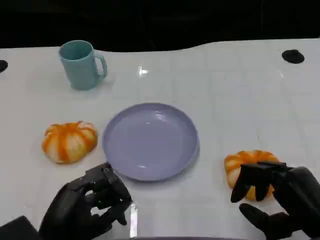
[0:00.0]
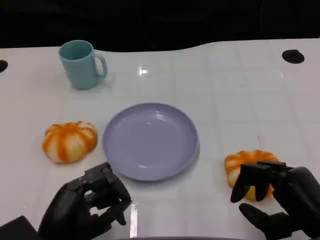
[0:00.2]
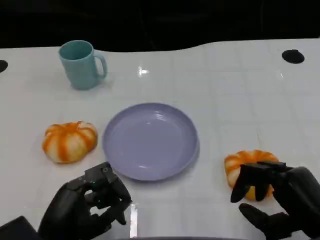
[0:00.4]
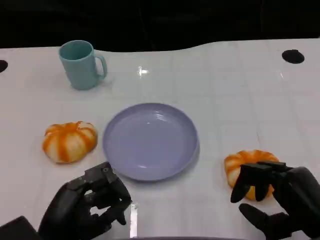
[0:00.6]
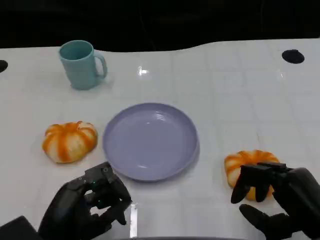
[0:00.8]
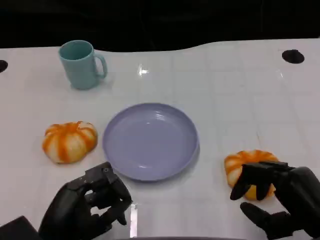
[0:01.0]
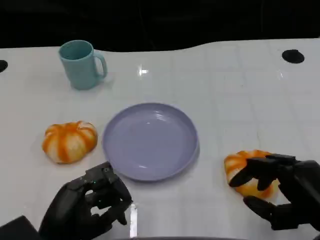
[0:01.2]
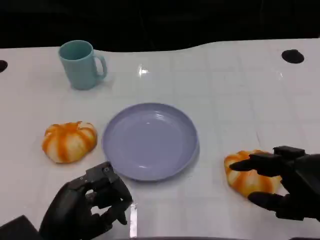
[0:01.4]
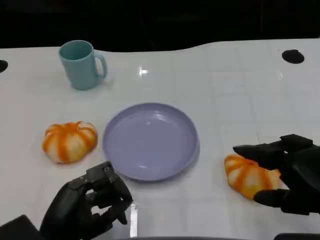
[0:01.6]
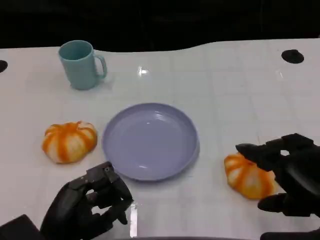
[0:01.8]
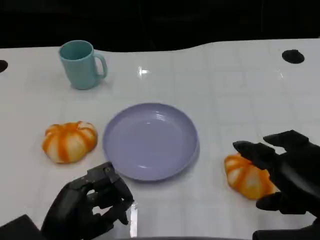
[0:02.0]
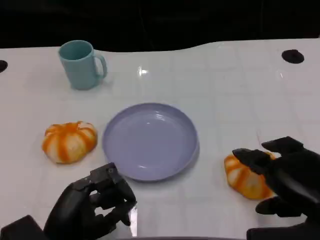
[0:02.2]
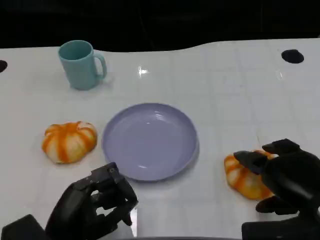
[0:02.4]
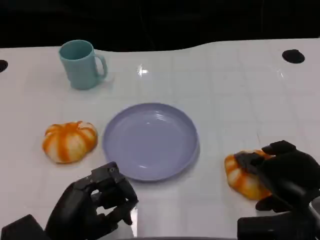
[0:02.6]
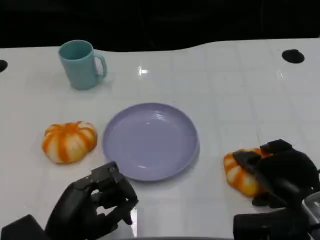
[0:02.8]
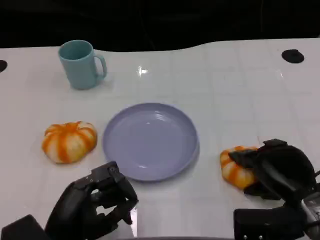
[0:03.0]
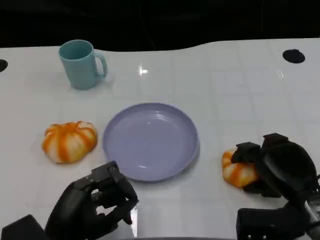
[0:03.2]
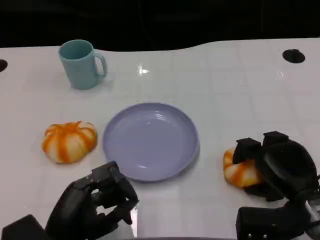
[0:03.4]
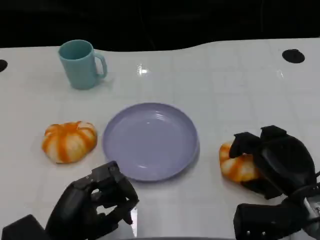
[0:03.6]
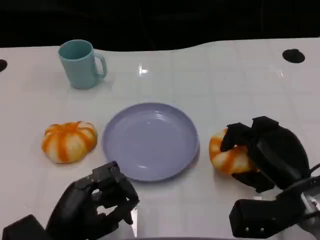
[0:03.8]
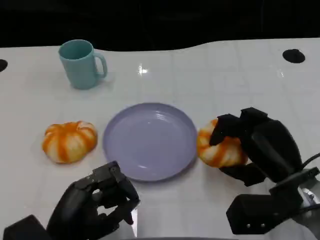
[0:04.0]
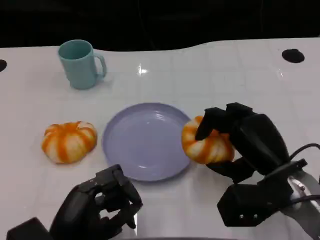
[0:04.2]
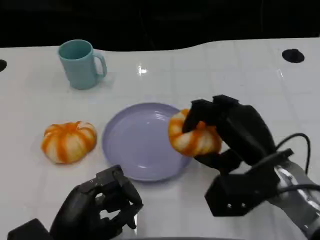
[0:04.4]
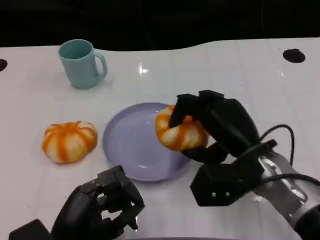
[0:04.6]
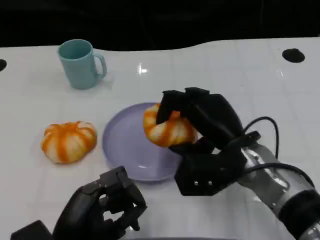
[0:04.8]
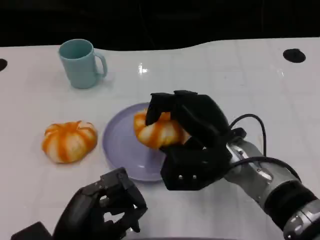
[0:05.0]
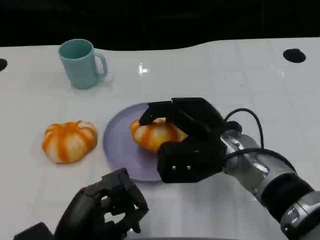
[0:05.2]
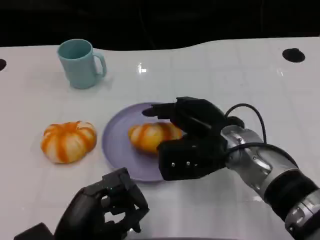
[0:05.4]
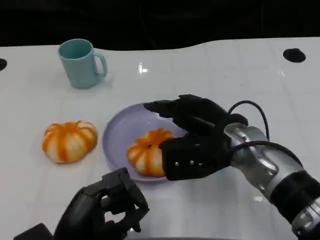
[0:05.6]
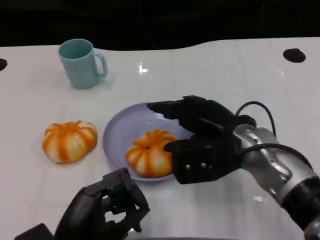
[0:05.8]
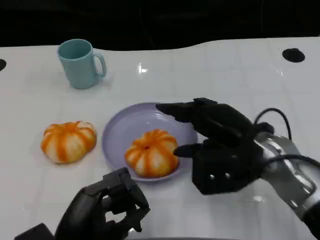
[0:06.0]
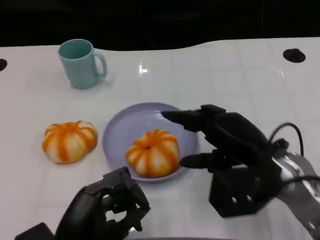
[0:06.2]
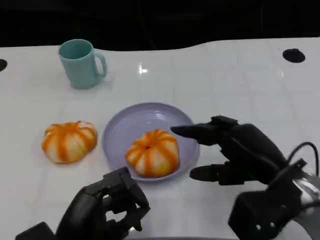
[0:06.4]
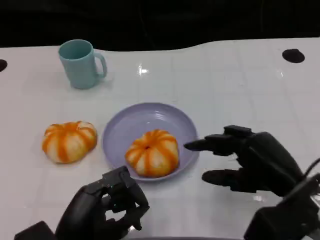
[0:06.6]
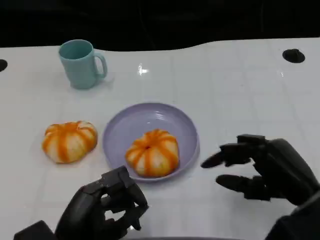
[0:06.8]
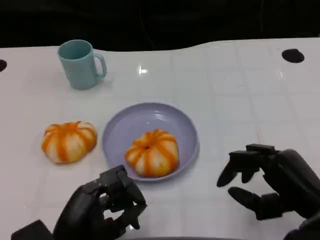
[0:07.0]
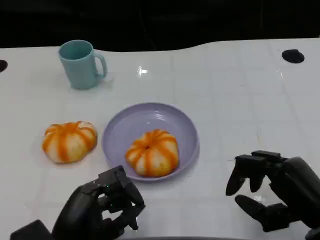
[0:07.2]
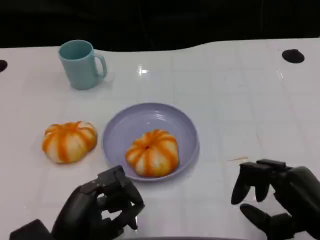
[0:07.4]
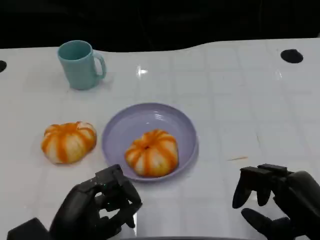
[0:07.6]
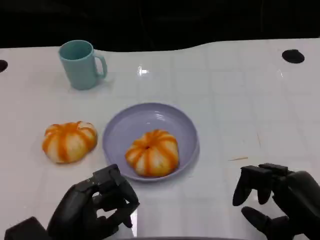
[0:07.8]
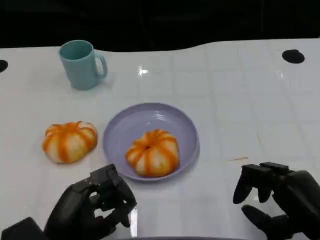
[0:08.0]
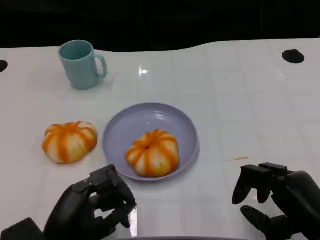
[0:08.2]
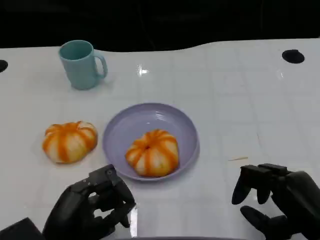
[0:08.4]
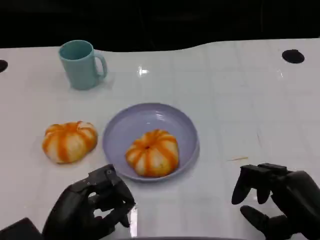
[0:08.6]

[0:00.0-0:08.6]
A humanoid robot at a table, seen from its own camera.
Task of the whole recording: Grasp the bread from the table and place it into the plate.
0.0 to 1.4 s: The hands make only small movements.
1.4 to 2.8 s: The right hand heads forward, covering roughly 5 cm.
2.8 to 4.4 s: The right hand moves to the left, about 5 cm.
5.8 to 7.2 s: The right hand heads backward and to the right, covering roughly 15 cm.
7.2 to 8.6 s: The hands stay close to where they were, moving slightly.

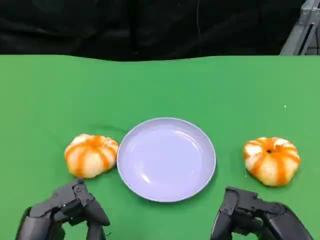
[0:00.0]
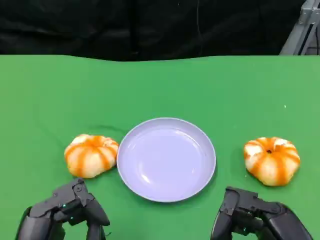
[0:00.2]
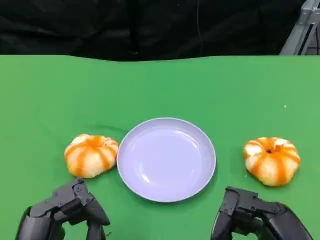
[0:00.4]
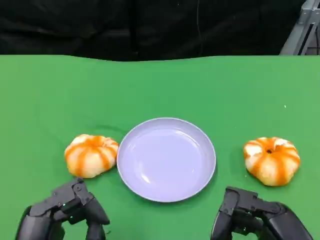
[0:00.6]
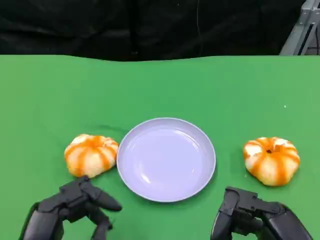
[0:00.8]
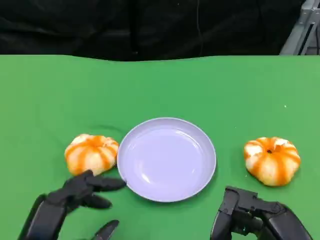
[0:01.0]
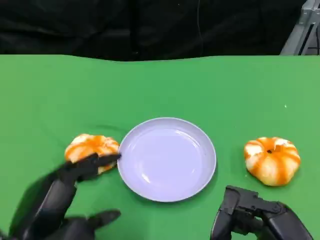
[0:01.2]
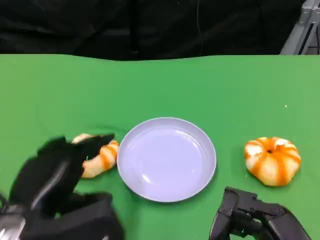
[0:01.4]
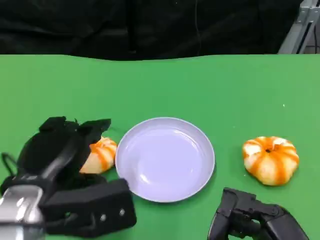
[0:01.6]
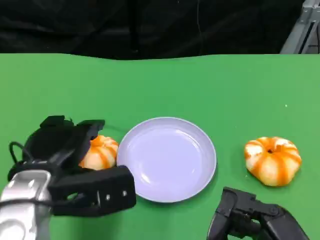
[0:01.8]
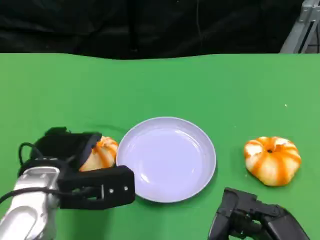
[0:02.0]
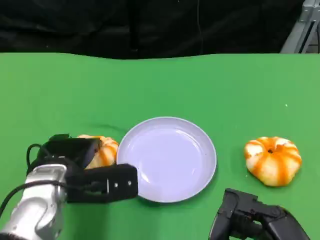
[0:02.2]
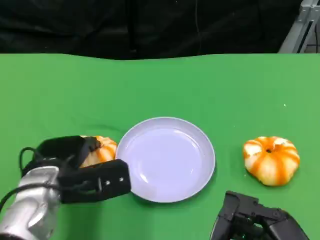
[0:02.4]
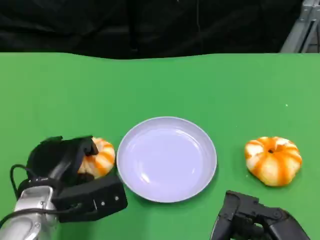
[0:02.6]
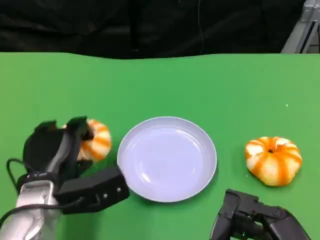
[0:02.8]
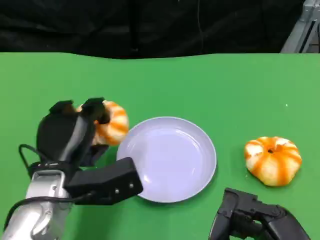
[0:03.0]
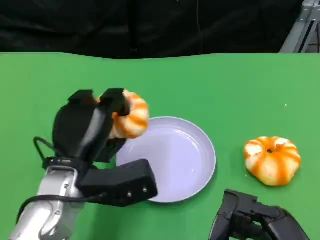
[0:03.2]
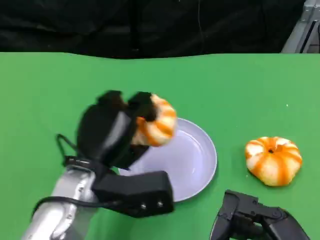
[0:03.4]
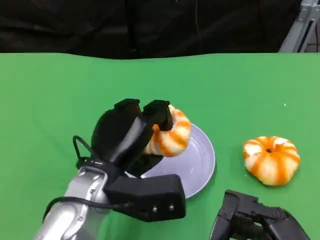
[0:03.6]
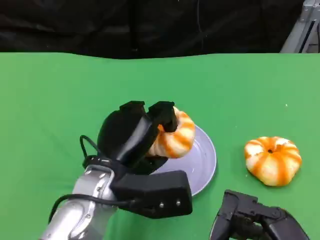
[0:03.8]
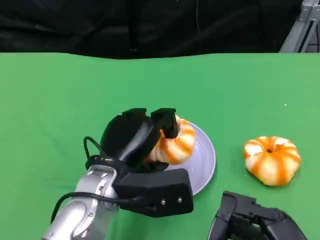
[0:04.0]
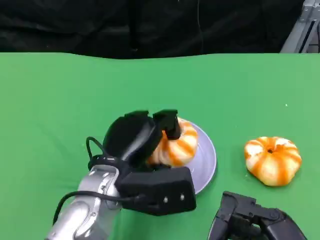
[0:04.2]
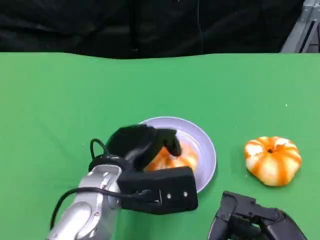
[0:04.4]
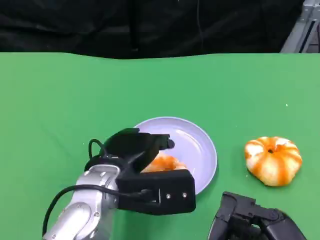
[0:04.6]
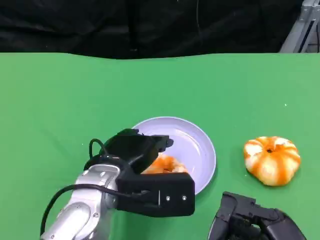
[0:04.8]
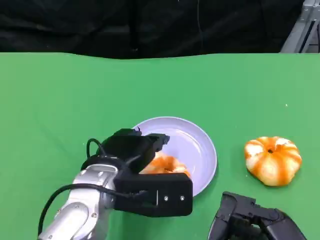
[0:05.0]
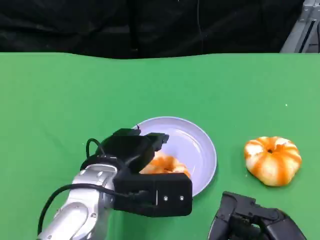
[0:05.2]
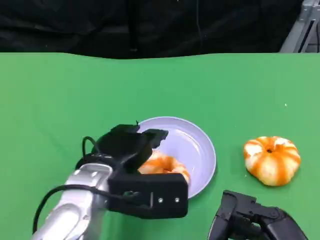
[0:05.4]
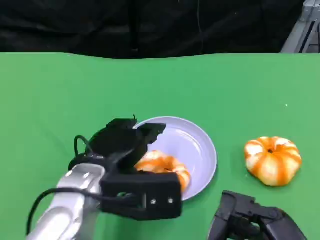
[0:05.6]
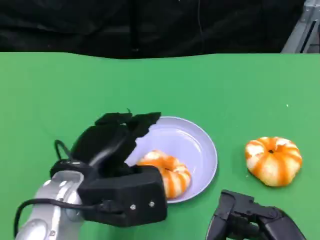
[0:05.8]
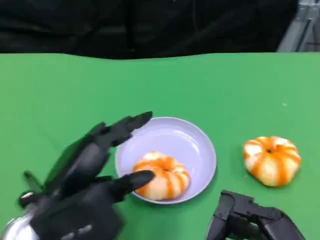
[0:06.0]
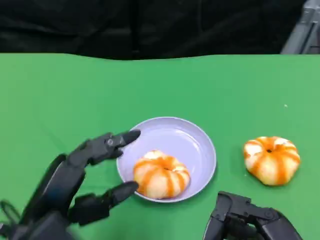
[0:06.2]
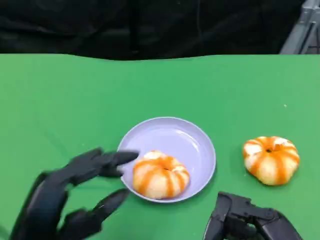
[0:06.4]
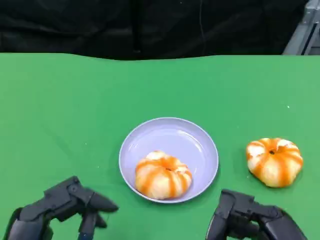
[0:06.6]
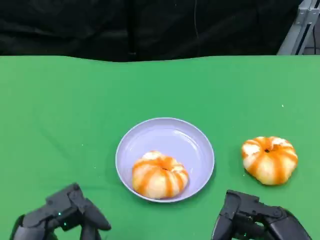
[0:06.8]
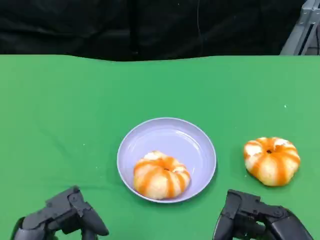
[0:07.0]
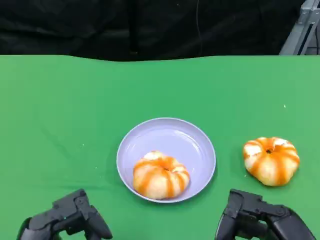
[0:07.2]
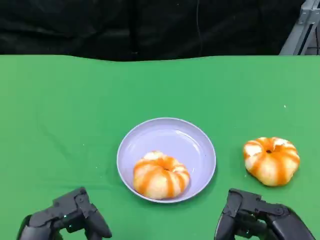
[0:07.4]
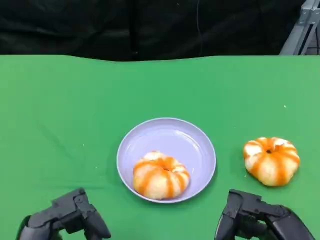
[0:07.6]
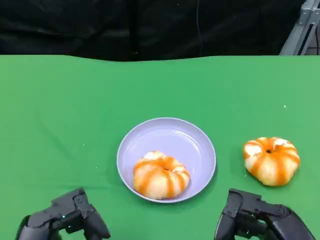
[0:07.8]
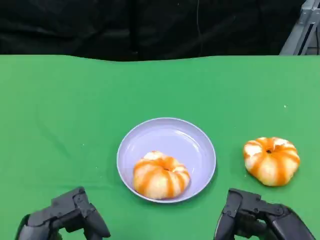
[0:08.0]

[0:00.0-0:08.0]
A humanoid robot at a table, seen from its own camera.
Task of the whole recording: Grasp the bread from the table and place it into the plate.
0.0 to 1.6 s: The left hand moves forward, about 10 cm.
1.6 to 3.2 s: The left hand shifts by approximately 10 cm.
4.8 to 6.4 s: The left hand moves backward and to the left, approximately 15 cm.
6.4 to 8.0 s: The hands make only small movements.

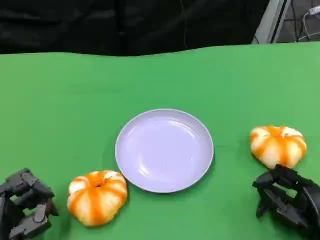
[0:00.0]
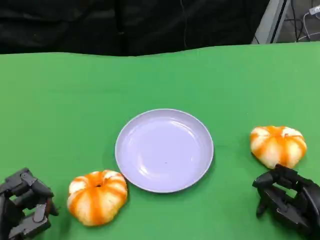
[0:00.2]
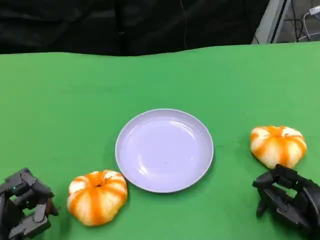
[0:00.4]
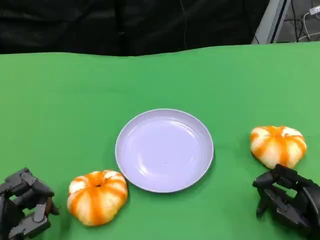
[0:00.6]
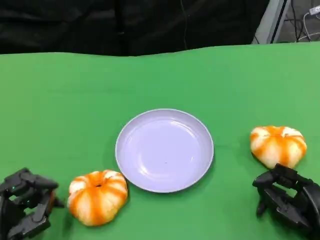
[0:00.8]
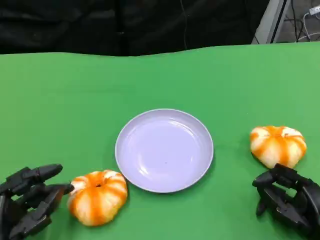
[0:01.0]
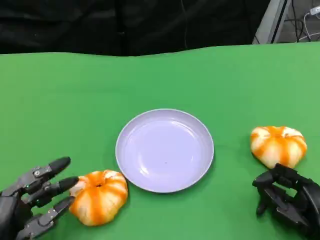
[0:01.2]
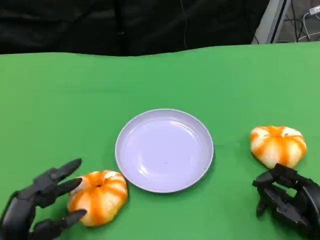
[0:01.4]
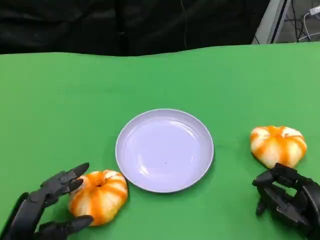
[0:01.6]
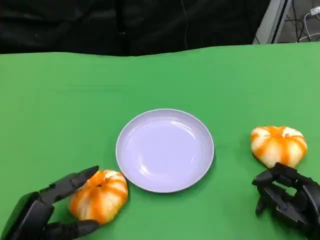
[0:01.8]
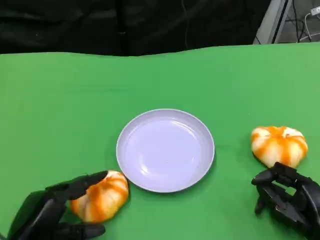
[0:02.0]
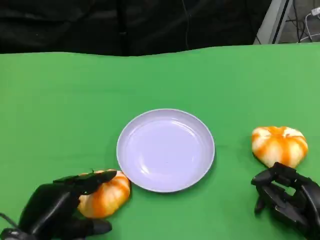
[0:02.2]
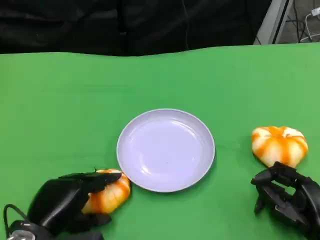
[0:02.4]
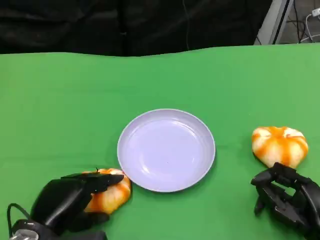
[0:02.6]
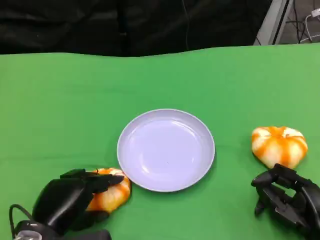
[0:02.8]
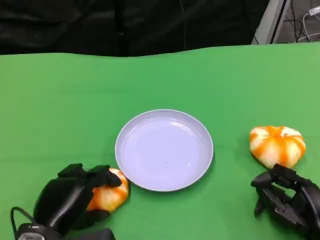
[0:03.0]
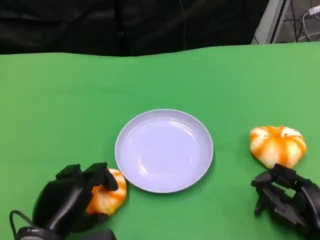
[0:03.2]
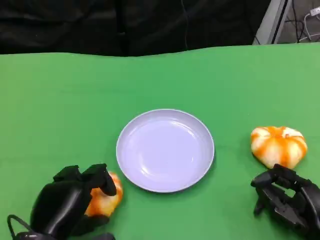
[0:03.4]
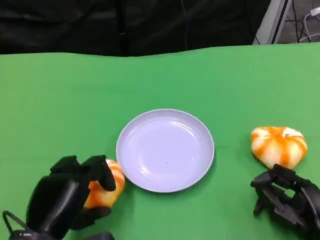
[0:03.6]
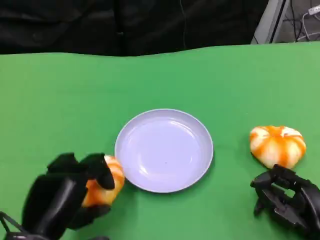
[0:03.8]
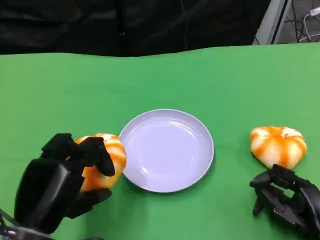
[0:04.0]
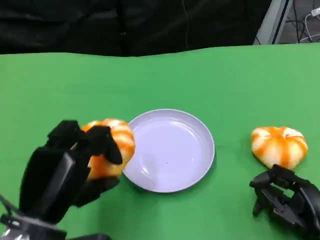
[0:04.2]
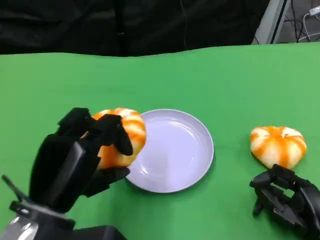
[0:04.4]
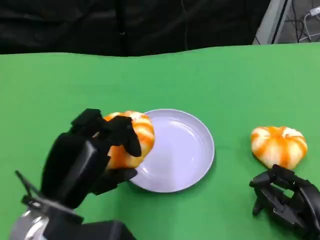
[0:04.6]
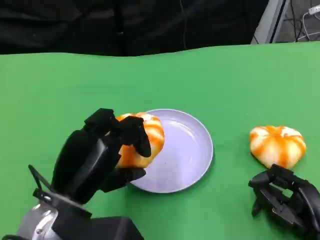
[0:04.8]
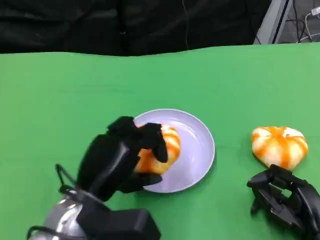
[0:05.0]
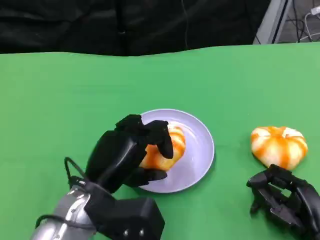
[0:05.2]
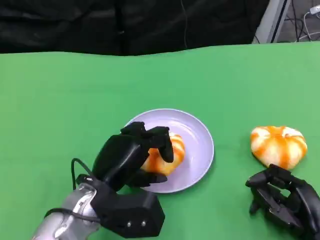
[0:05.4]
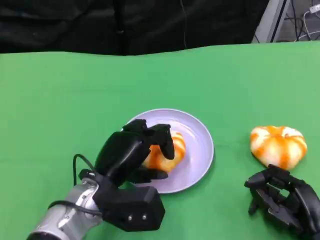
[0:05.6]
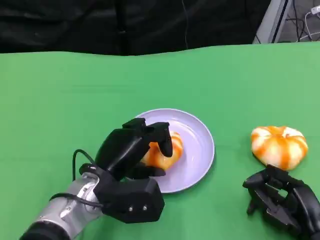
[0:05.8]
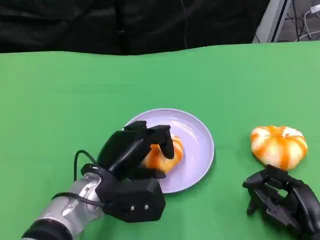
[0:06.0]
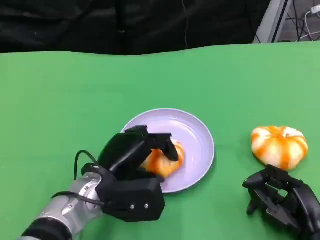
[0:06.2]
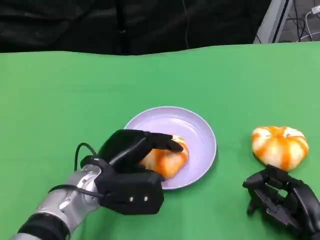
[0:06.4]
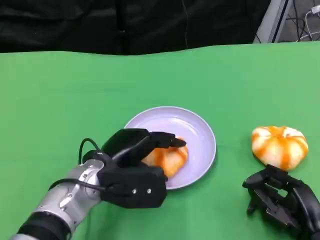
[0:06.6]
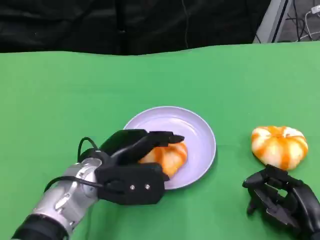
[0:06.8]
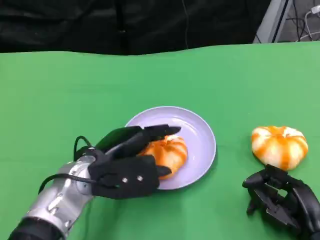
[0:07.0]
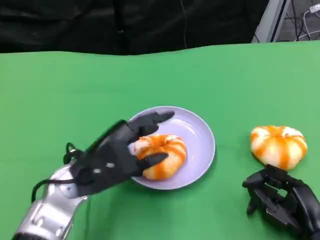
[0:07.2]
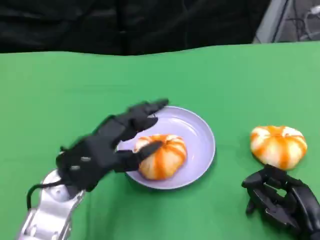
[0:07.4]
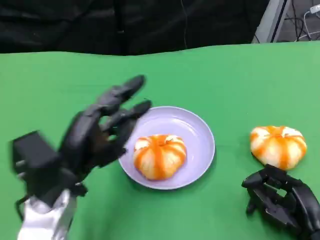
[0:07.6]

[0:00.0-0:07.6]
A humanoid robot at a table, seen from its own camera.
Task of the whole recording: Grasp the bread from the table and place it into the plate.
1.6 to 3.0 s: The left hand goes some 5 cm to the right.
3.0 to 4.6 s: The left hand heads upward, covering approximately 10 cm.
4.6 to 6.0 s: The left hand shifts about 10 cm forward, downward and to the right.
6.0 to 7.6 s: The left hand is displaced to the left and upward by some 10 cm.
